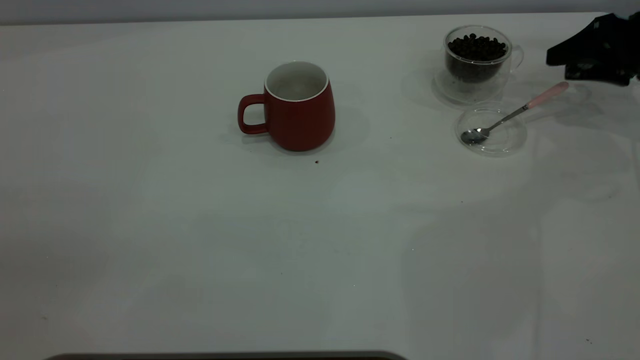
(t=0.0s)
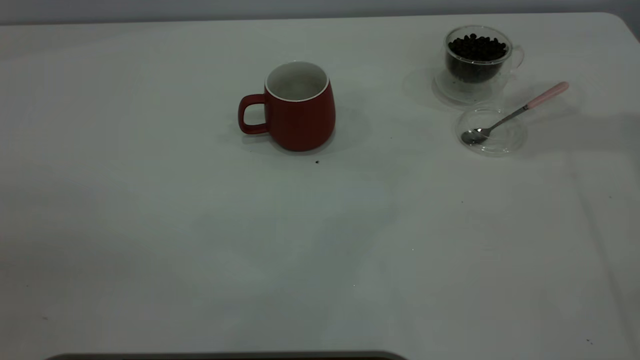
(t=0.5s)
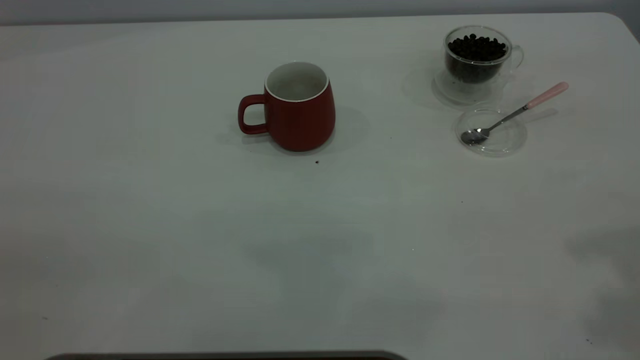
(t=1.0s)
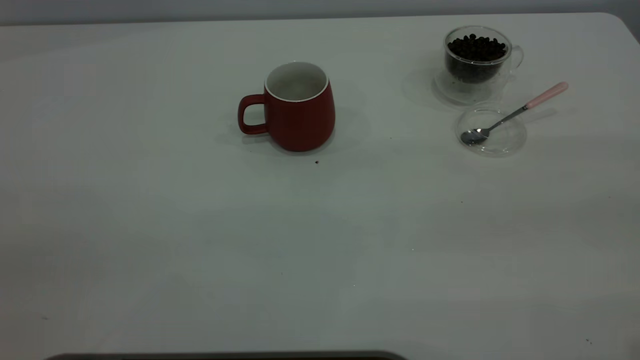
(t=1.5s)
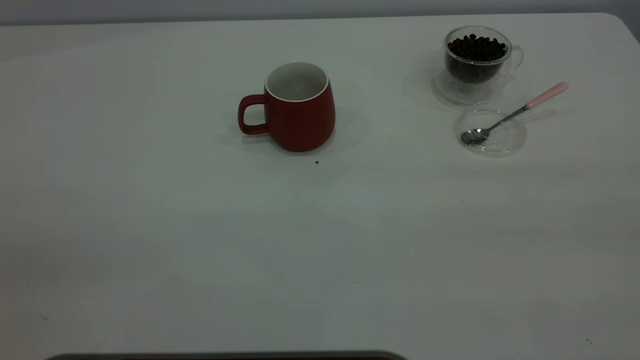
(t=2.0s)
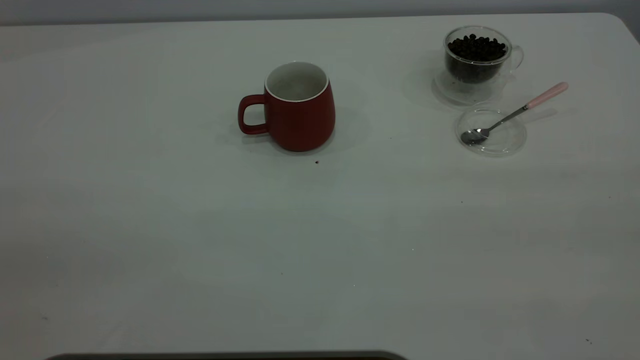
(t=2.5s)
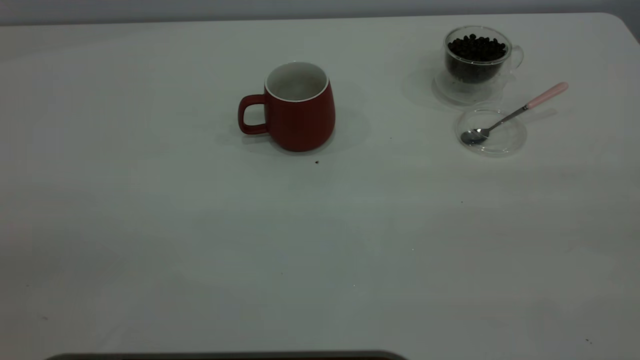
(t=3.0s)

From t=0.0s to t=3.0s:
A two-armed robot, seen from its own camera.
Task of the whole recording: the left gripper place the red cup in the center of the table, the right gripper take the pink spoon from the cup lid and scoop out the coffee beans from the coffee cup and put them into the red cup, the right gripper put the spoon back into the cup lid.
From t=0.0s to t=1.5s: The right gripper is displaced backward and upward by some 40 cm.
